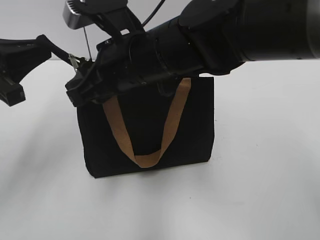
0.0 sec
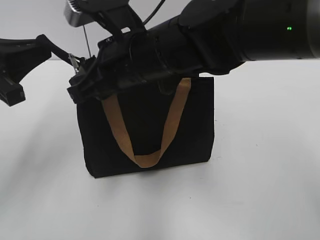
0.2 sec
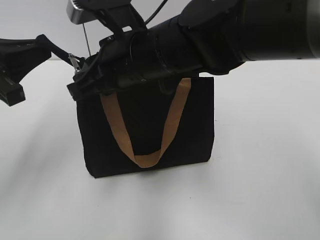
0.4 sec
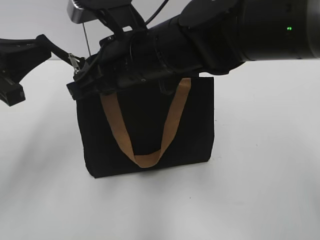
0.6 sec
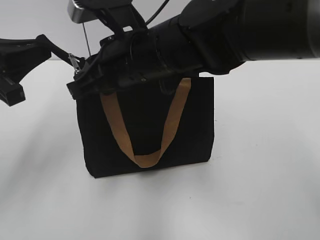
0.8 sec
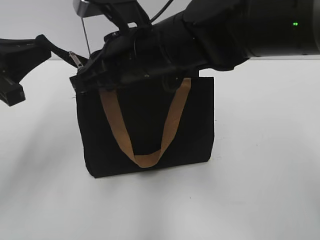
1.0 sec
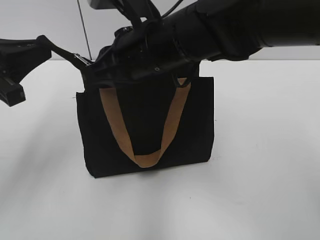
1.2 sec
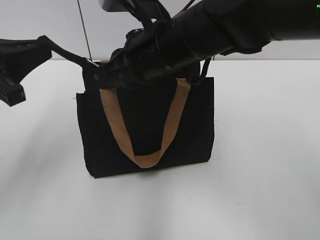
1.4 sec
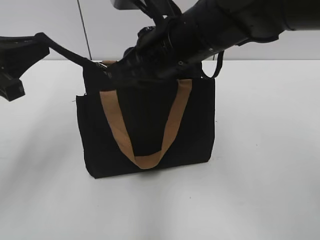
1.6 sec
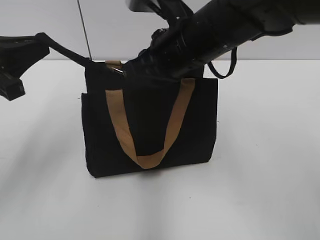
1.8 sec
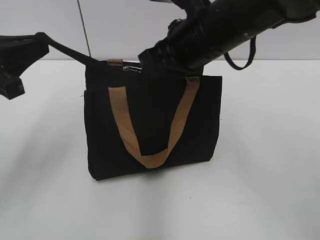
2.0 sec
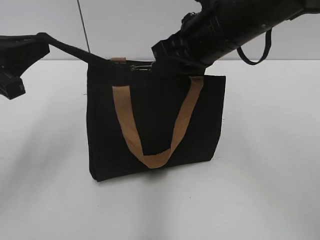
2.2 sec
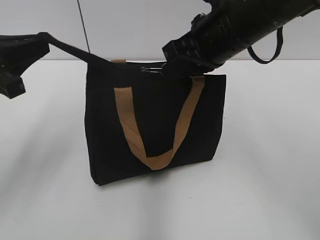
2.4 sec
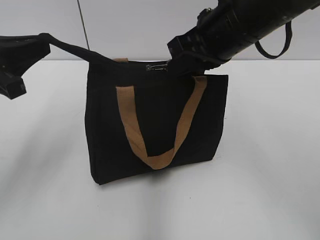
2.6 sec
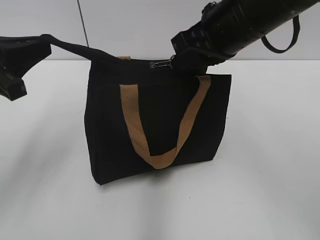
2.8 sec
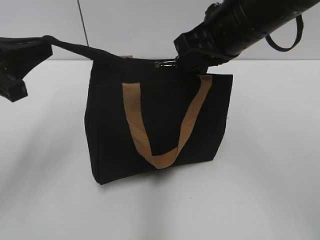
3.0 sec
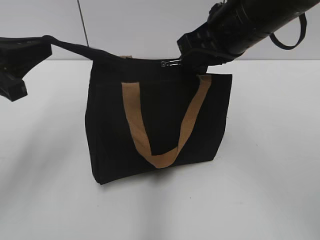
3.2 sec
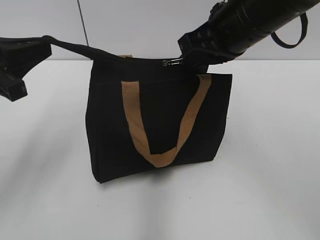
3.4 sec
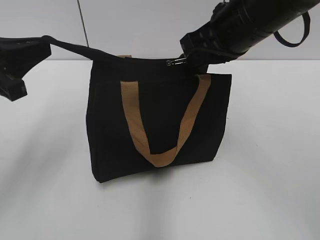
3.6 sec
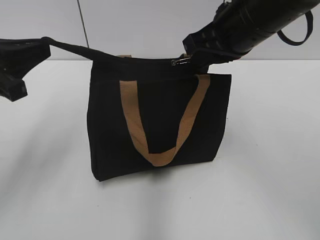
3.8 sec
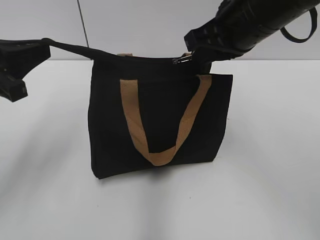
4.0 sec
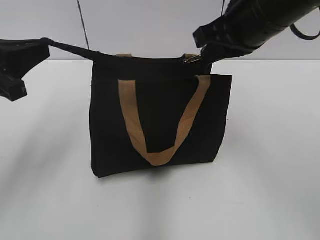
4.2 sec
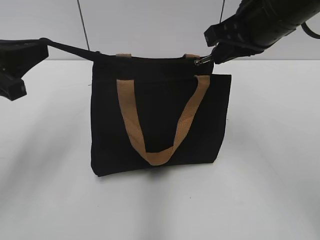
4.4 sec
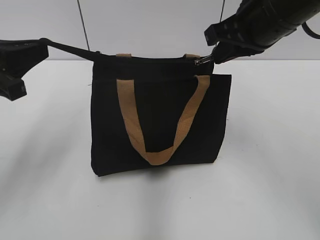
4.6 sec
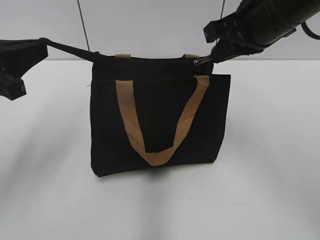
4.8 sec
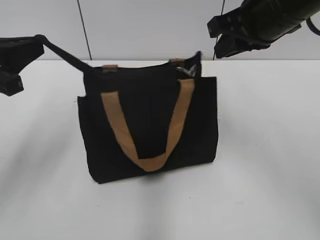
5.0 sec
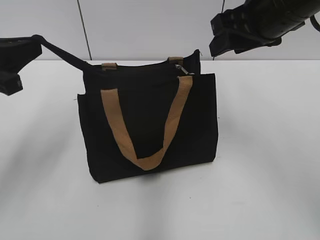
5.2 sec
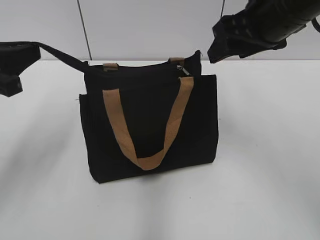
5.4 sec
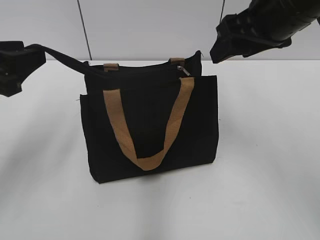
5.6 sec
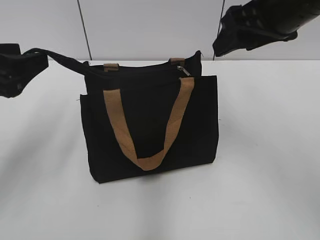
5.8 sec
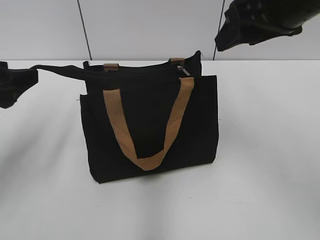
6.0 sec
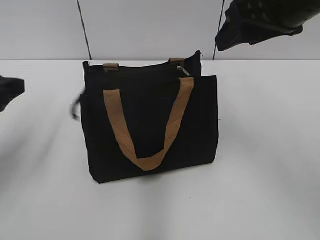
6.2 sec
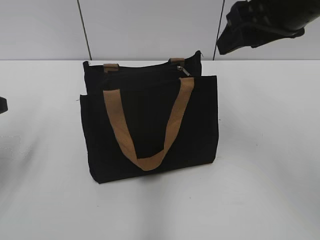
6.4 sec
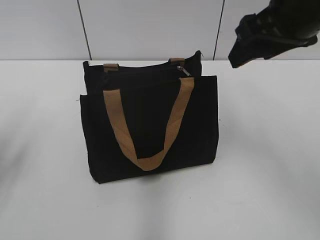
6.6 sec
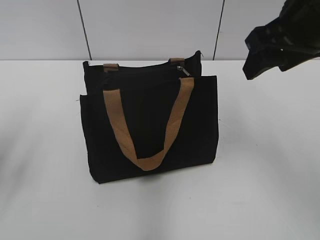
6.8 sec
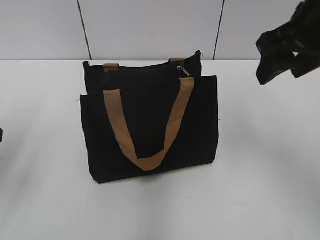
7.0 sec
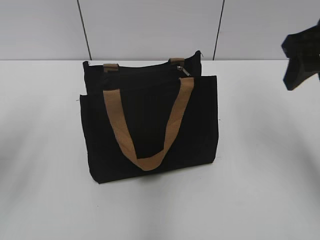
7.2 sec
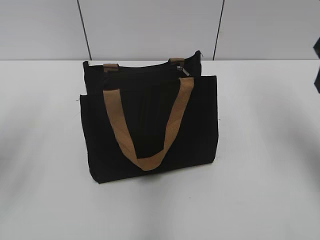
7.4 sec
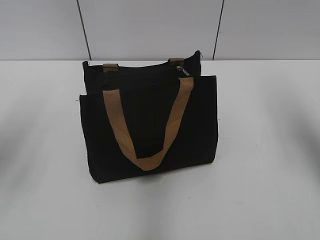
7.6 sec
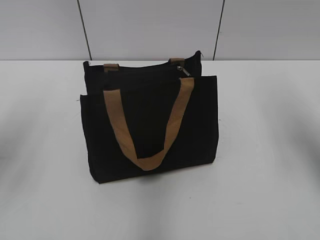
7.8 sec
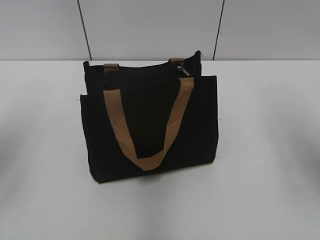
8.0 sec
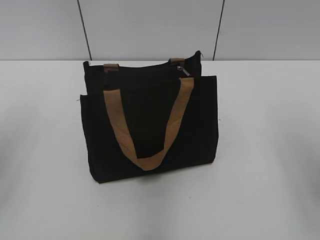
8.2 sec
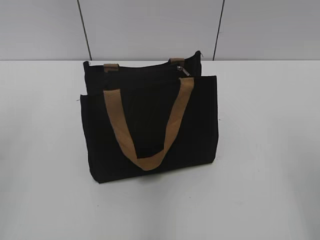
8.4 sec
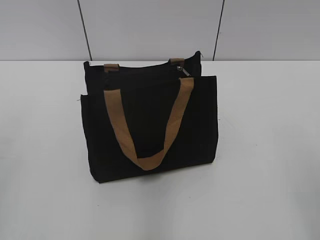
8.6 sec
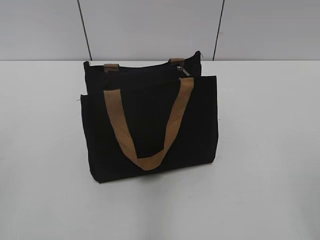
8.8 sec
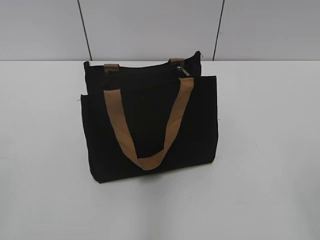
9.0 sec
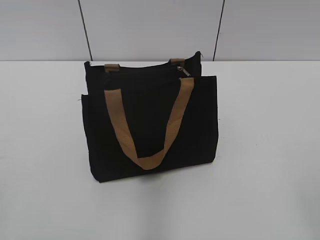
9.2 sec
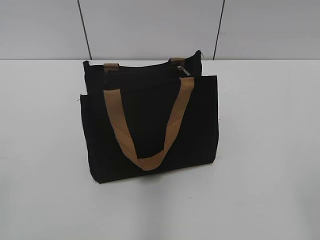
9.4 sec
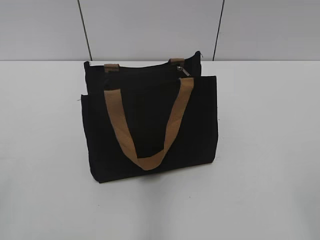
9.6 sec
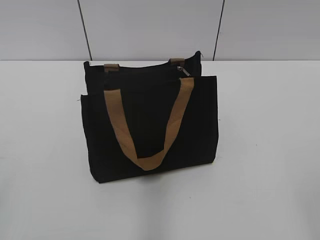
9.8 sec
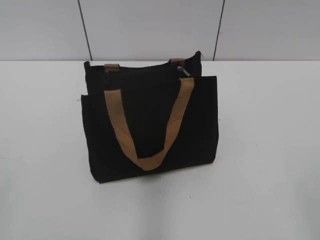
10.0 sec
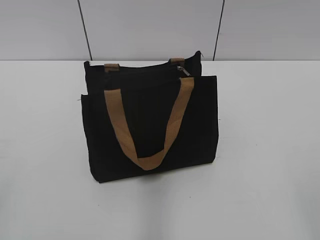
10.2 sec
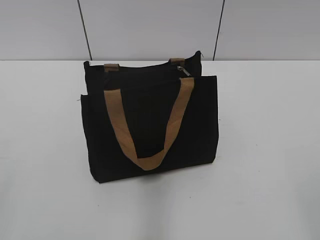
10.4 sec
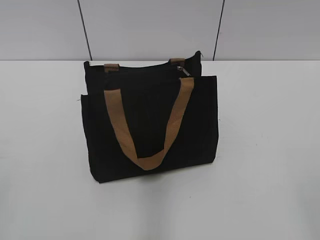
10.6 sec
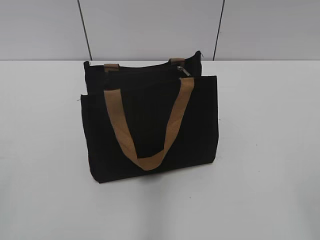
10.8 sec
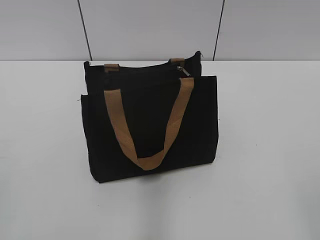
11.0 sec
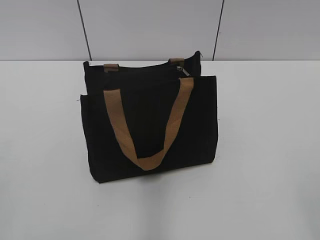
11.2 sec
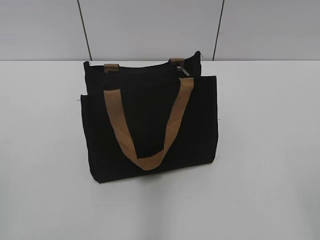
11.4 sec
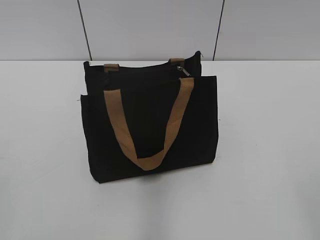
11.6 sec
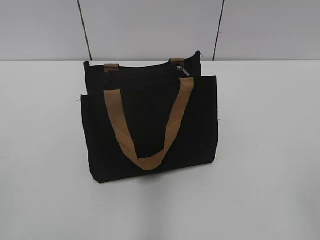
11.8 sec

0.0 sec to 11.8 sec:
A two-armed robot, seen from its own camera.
Step, 0.0 sec to 5.2 sec: Zip up the bag with your right hand.
Step, 5.4 sec to 6.2 sec: Grab the zipper with your left hand.
0.0 sec to 1.4 sec: The right gripper closes.
1.4 sec to 3.0 sec: The right gripper heads to the right, covering roughly 10 cm.
3.0 sec to 4.4 sec: The grippers move only a little.
4.4 sec to 6.0 sec: The right gripper opens up. The left gripper opens up.
6.0 sec to 7.4 sec: The right gripper is displaced to the right by some 10 cm.
7.4 sec to 8.8 sec: The right gripper heads backward, covering roughly 25 cm.
10.4 sec to 11.8 sec: The two grippers keep their place.
